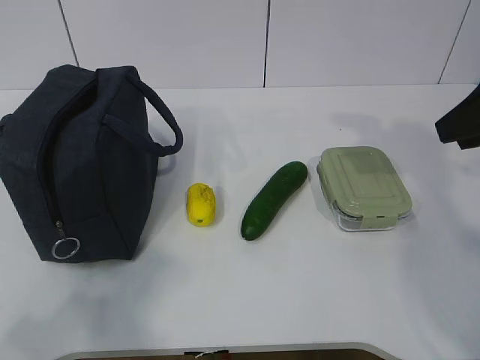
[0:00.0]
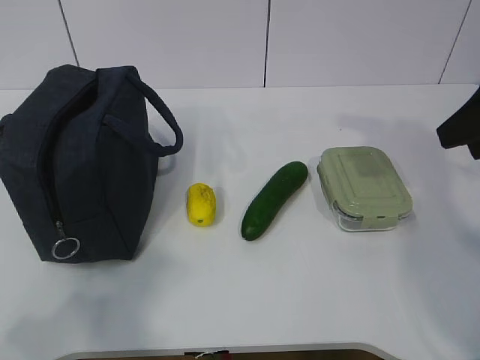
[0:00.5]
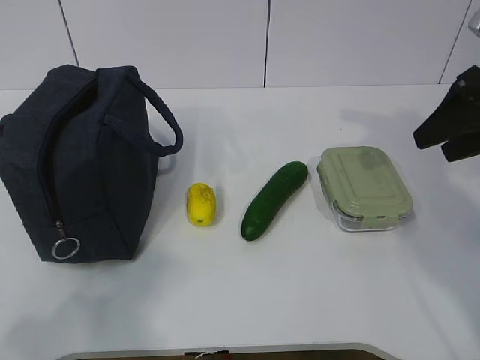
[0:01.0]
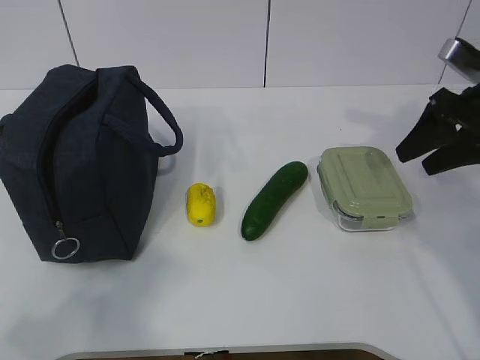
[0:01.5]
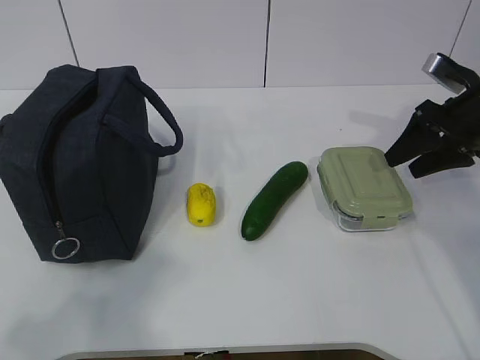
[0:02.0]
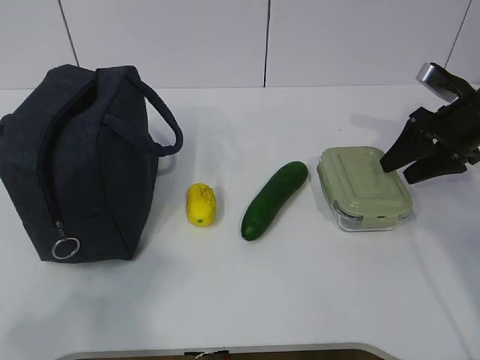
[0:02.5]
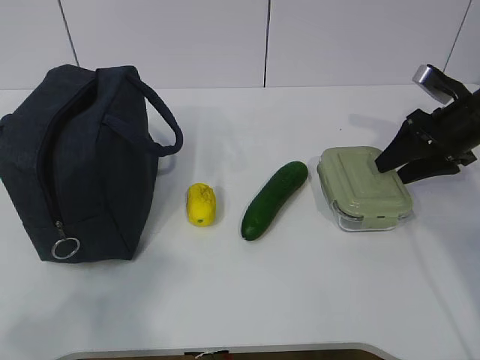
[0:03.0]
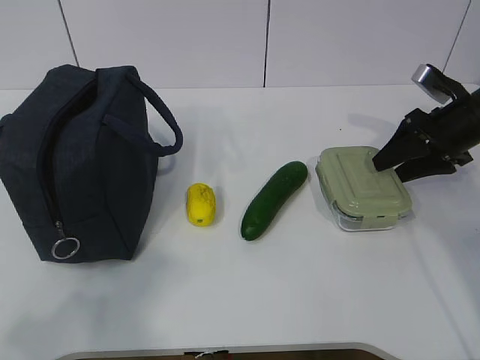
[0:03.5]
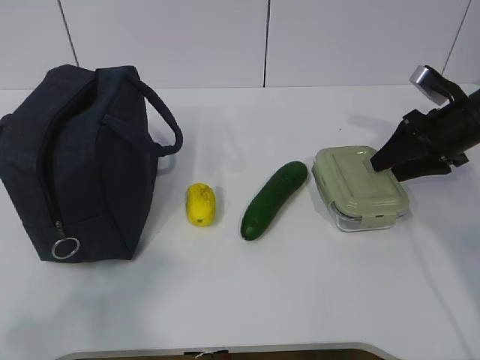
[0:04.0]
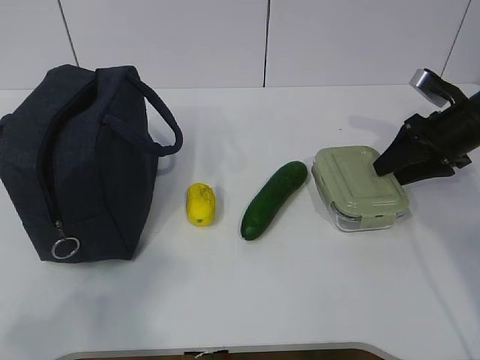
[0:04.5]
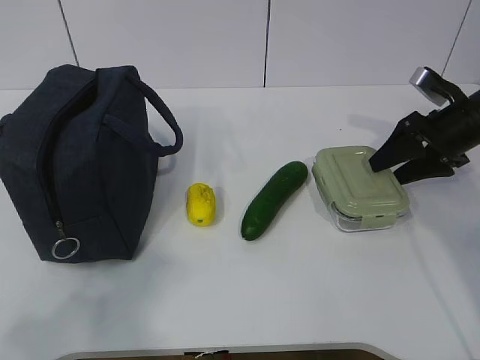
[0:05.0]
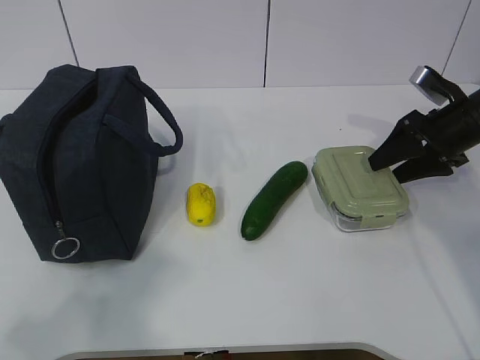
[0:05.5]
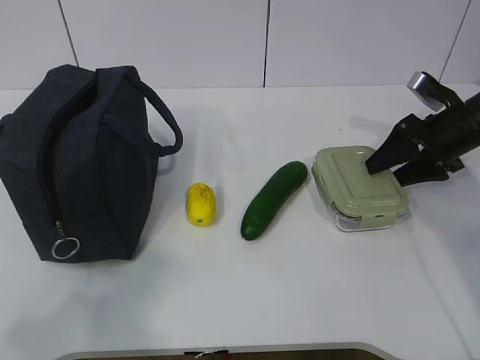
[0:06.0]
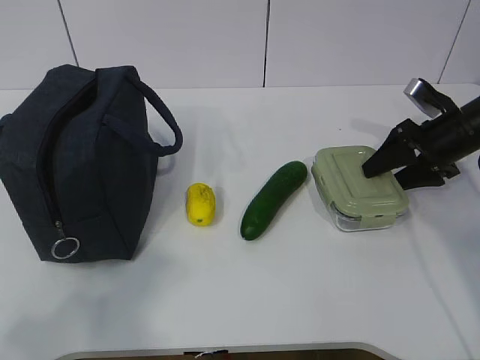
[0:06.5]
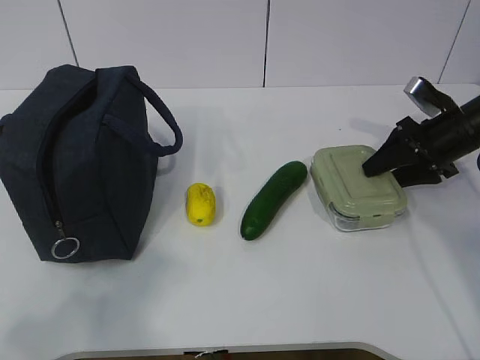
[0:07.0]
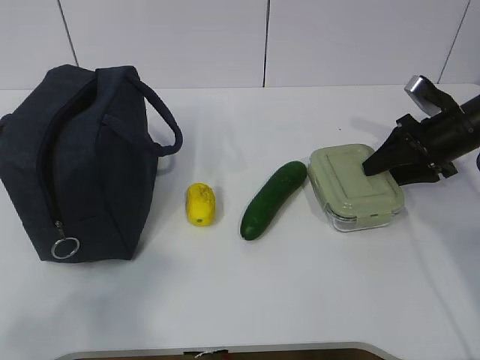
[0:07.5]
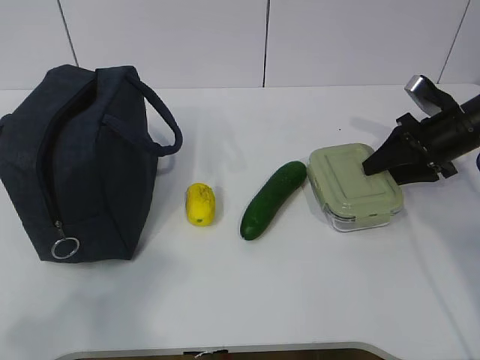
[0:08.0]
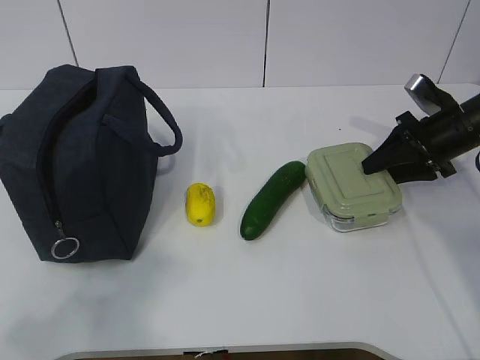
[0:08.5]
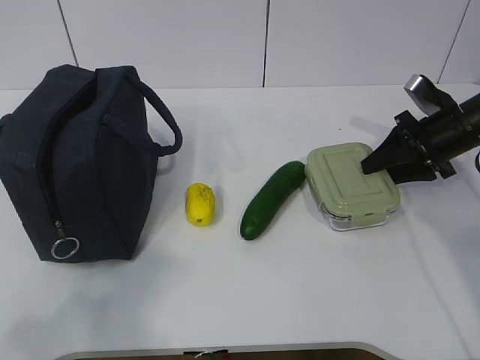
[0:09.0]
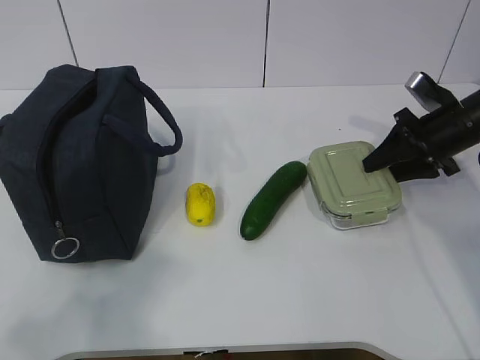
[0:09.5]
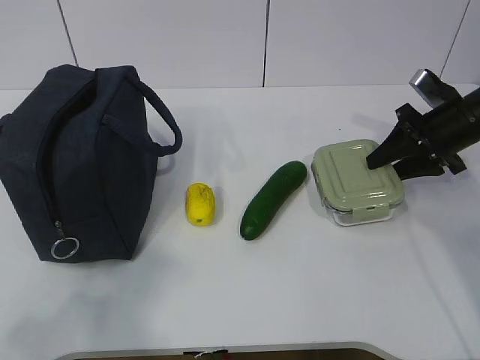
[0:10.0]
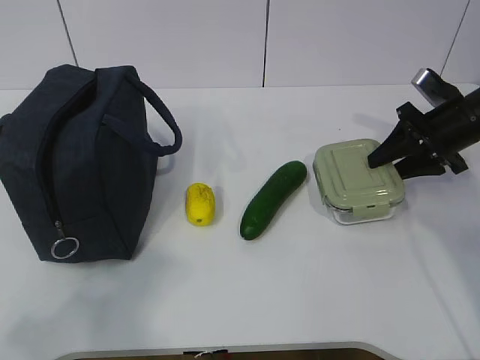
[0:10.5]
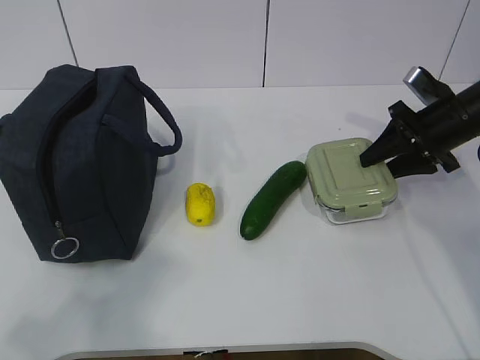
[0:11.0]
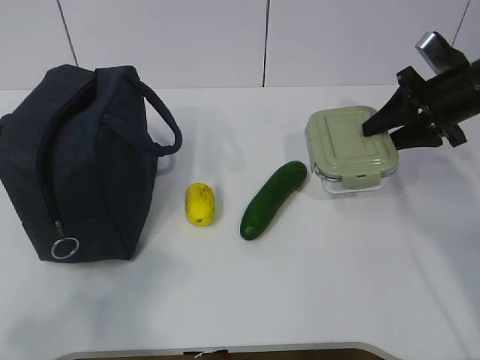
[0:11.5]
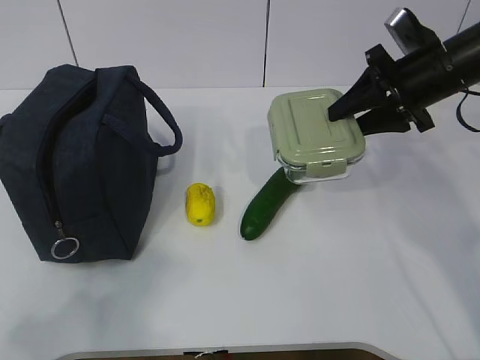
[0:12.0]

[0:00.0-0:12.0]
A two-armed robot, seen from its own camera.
Step, 0:00.0 to 0:06.5: Grab the lunch box with your right hand.
0:00.0 to 0:02.0: The right gripper is displaced forward and downward by roughly 15 cm.
0:02.0 to 0:04.0: The grippers make only small movements.
0:04.0 to 0:06.0: Both grippers stay about where they are.
0:06.0 to 0:08.0: The two grippers keep their place.
0:08.0 to 0:10.0: The grippers stay close to where they were, moving slightly.
0:10.0 to 0:12.0: The right gripper shifts roughly 10 cm upward and to the left.

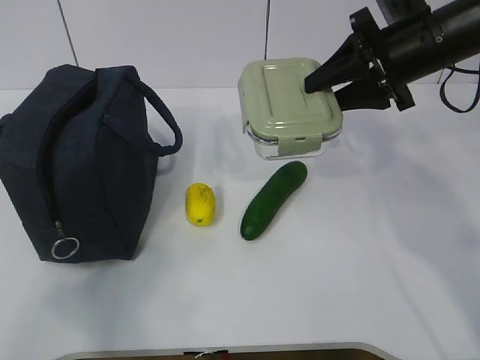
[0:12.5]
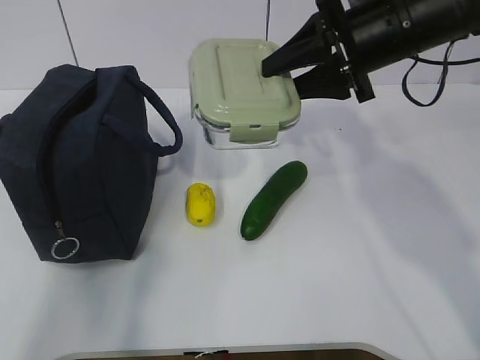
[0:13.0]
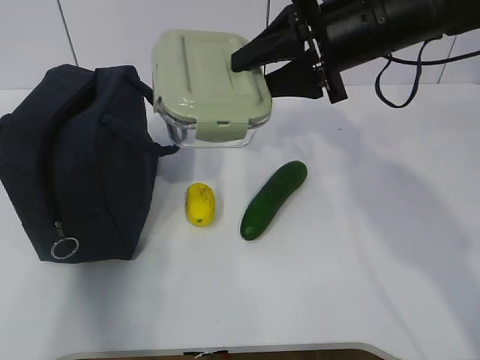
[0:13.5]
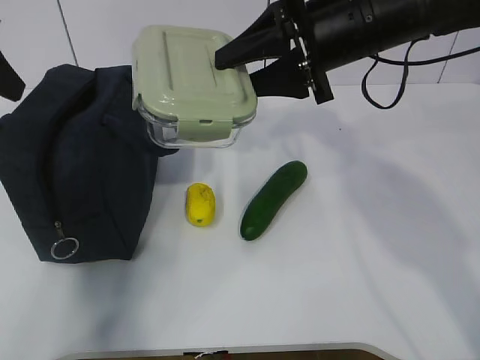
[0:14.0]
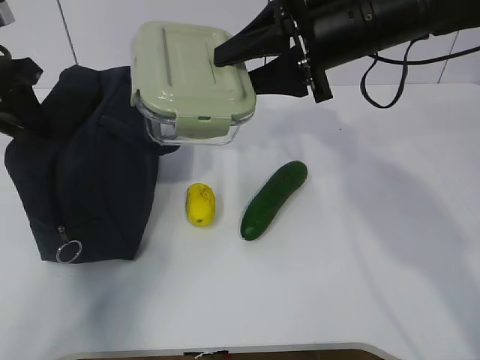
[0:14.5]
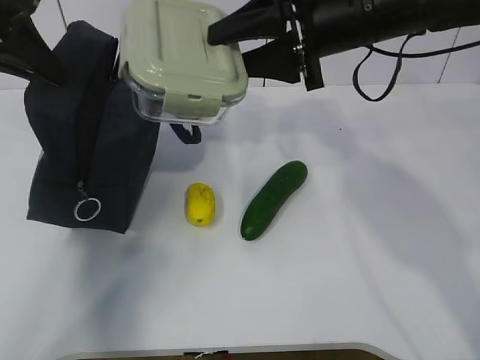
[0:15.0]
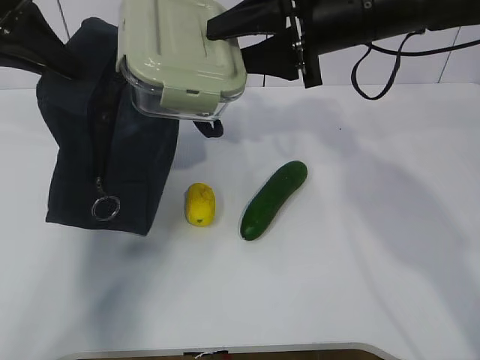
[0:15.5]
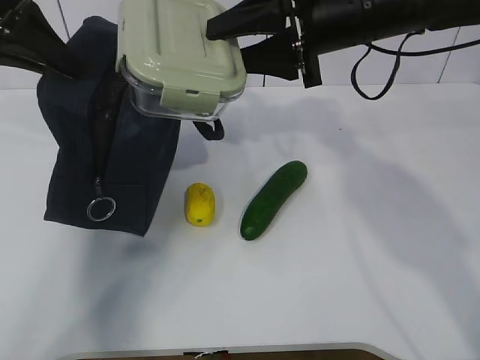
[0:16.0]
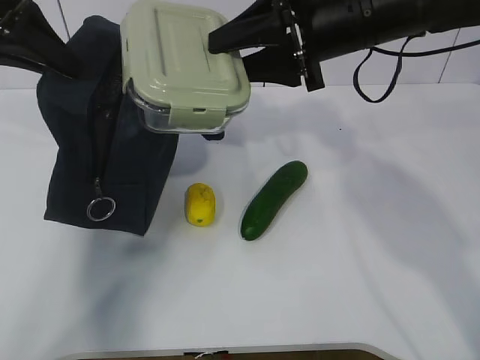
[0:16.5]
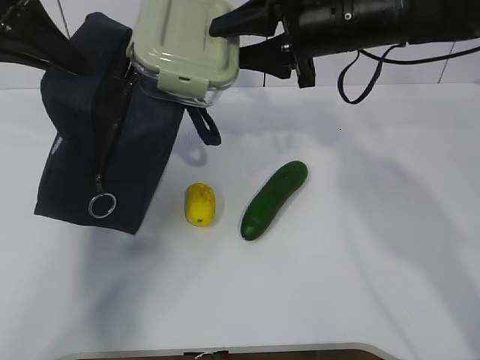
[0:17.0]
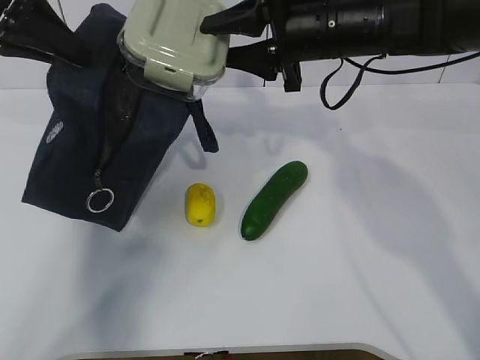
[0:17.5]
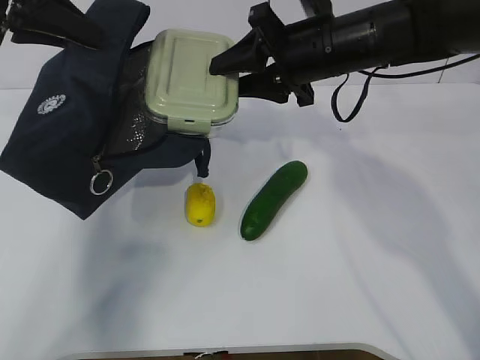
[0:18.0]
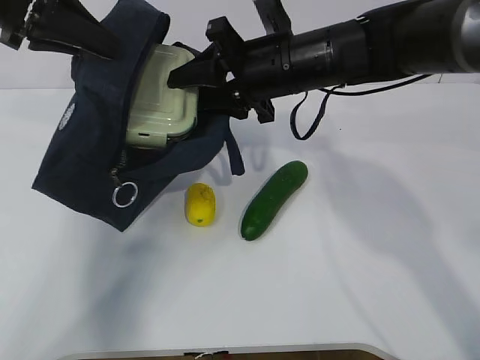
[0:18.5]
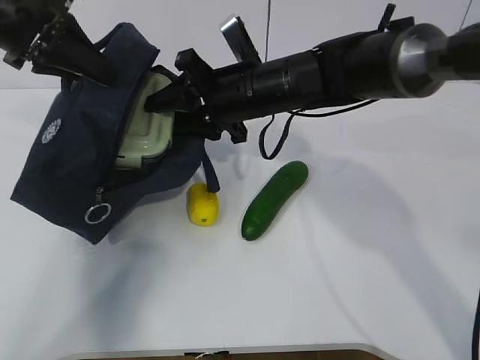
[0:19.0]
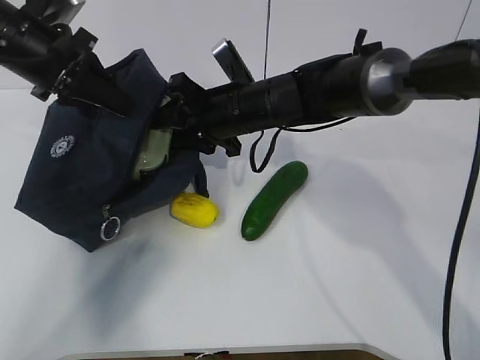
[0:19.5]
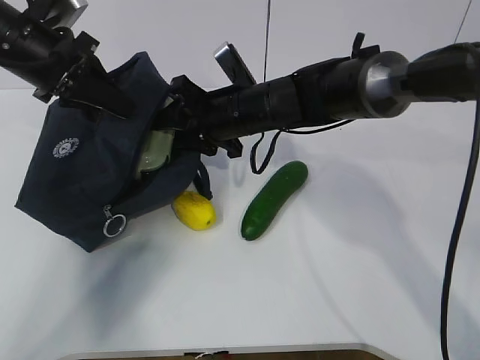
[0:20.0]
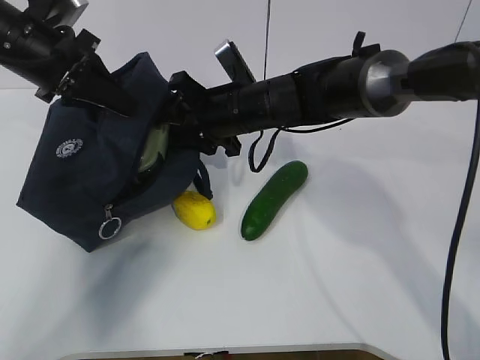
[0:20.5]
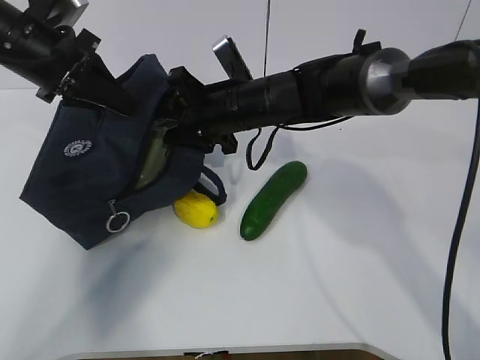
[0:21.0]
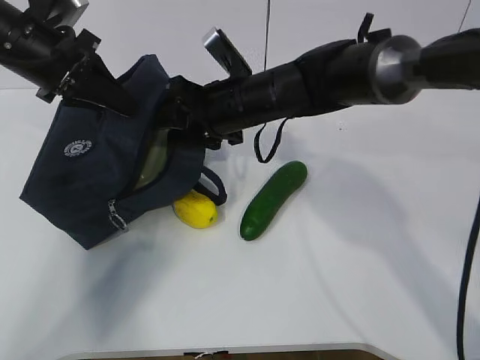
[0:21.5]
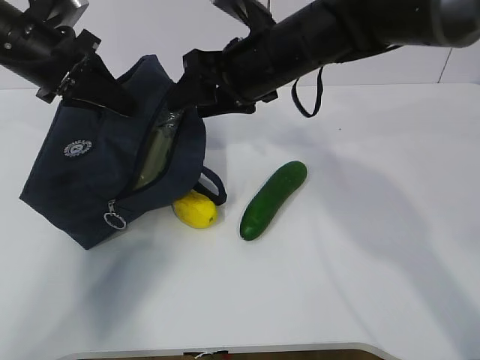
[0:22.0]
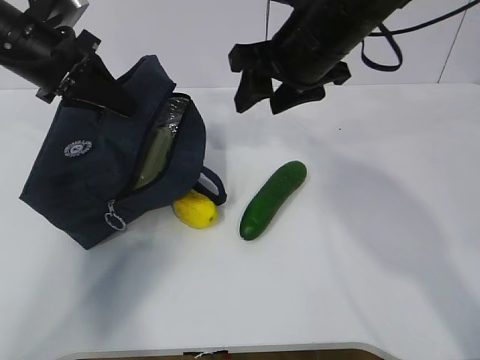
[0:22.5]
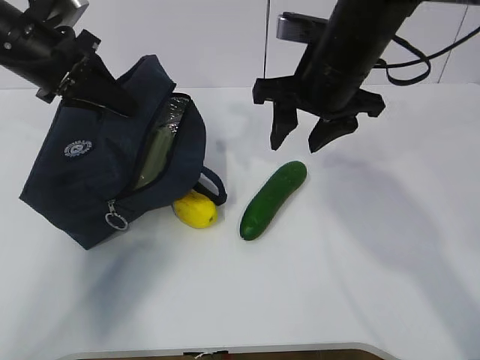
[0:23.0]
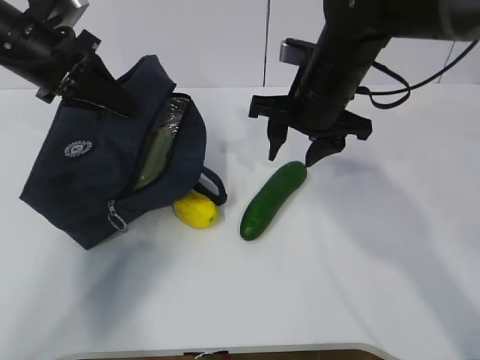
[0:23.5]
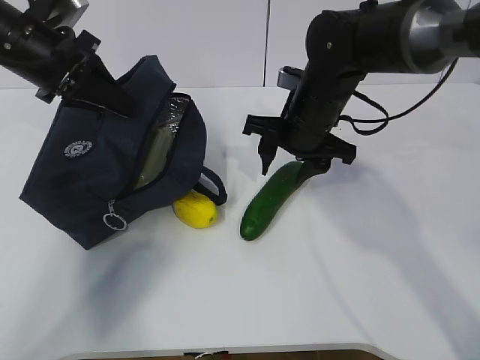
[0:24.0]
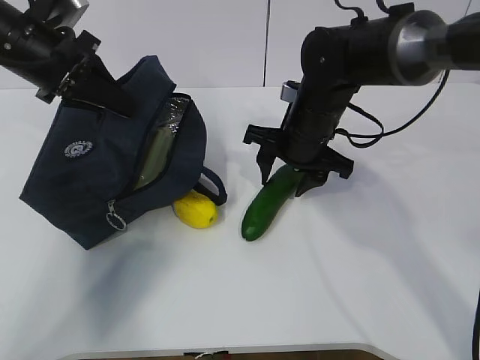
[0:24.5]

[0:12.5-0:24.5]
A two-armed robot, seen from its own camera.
Step, 0:16.5 to 0:20.0: Grab the cucumber with your right hand.
Step, 0:20.5 to 0:22.0: Place it into the bag with your right hand.
0:12.5 to 0:14.5: The left gripper goes some 35 cm forward; the right gripper moves to the left, approximately 10 cm.
0:14.5 to 0:16.5: The left gripper travels upward by about 5 cm, and closes.
0:16.5 to 0:18.5: The right gripper heads downward and to the left, covering some 10 cm.
0:18.5 to 0:20.5: Both grippers travel together downward, about 5 cm.
0:20.5 to 0:22.5: The right gripper shifts approximately 15 cm upward and to the right.
0:22.5 to 0:24.5: The right gripper travels downward by approximately 10 cm.

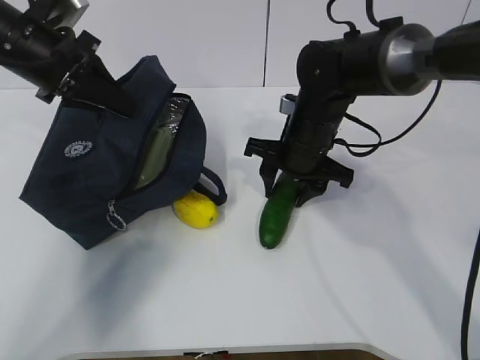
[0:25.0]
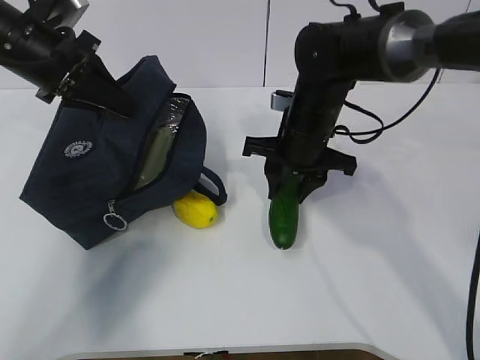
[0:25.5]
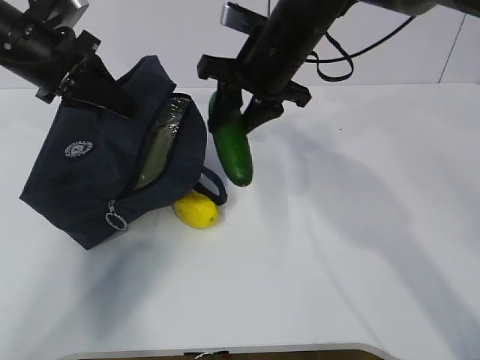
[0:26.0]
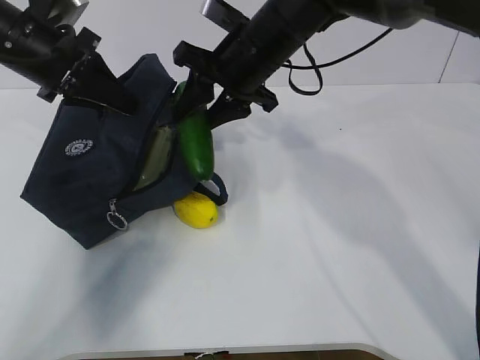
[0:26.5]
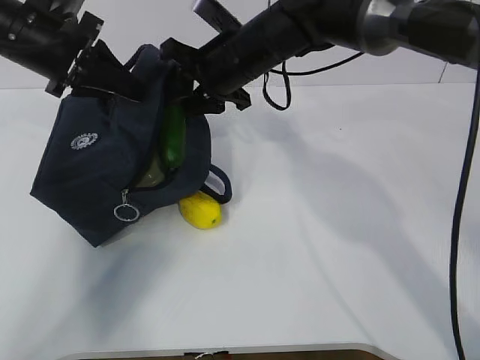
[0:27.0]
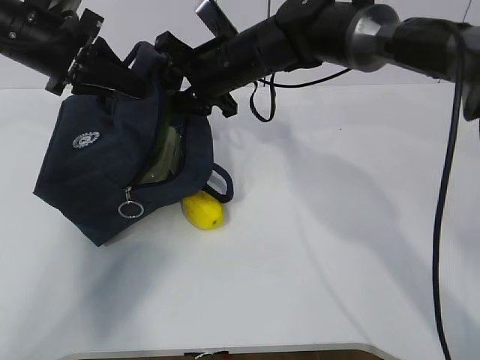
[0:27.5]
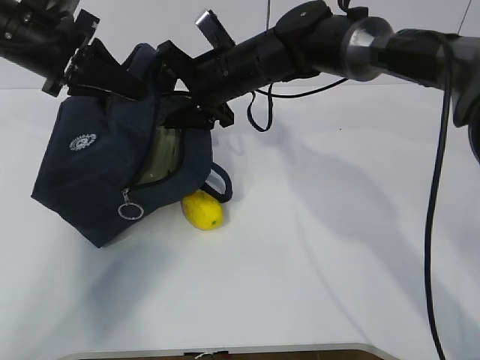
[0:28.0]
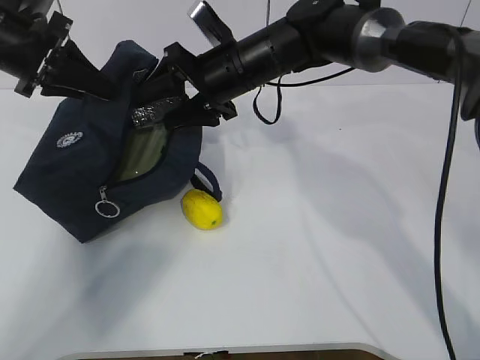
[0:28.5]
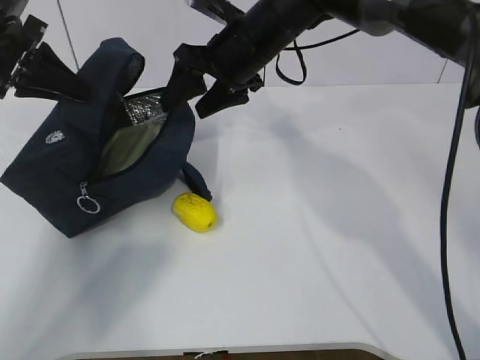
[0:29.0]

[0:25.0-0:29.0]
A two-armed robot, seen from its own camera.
Step, 0:26.5 to 0:28.5: Secure the lunch bag with your left hand.
0:25.0 to 0:27.0: The right gripper heads upward and to the left, covering about 10 cm.
0:27.0 to 0:29.0: The right gripper opens up. Meanwhile the left gripper shifts some 5 cm to the left.
